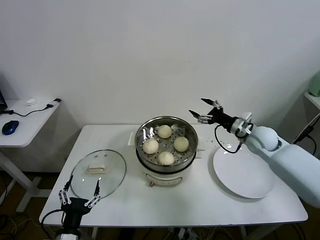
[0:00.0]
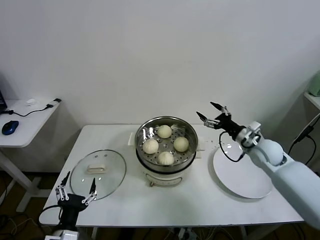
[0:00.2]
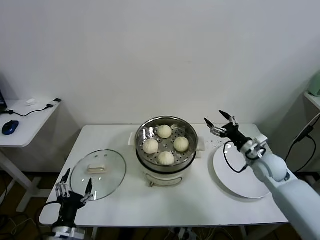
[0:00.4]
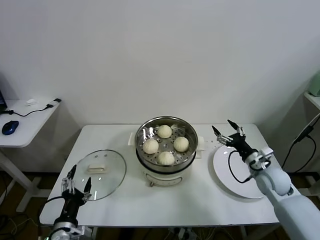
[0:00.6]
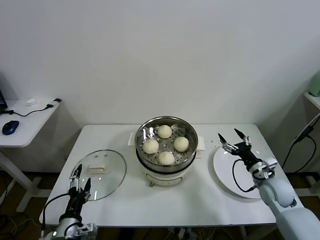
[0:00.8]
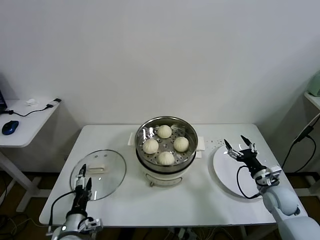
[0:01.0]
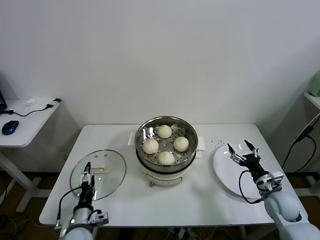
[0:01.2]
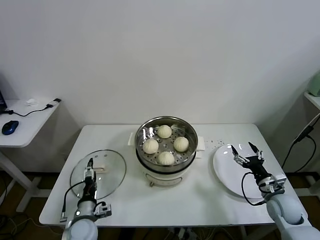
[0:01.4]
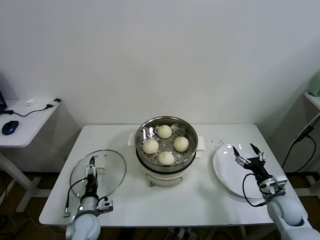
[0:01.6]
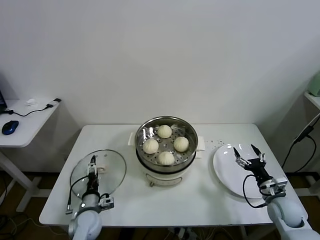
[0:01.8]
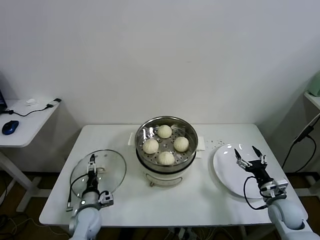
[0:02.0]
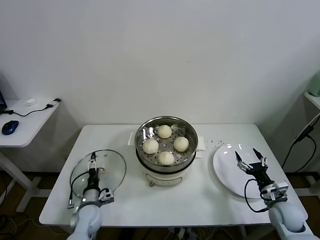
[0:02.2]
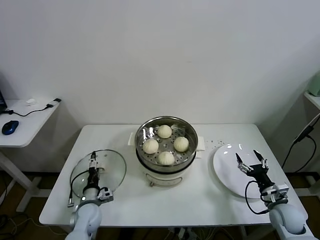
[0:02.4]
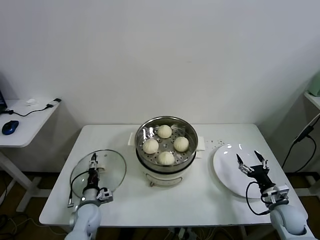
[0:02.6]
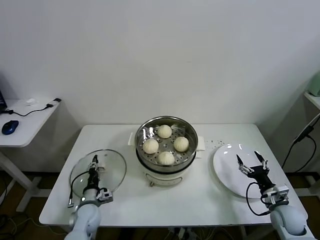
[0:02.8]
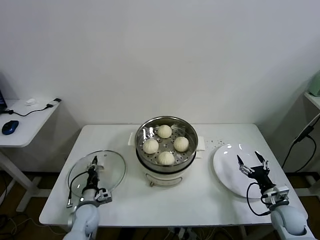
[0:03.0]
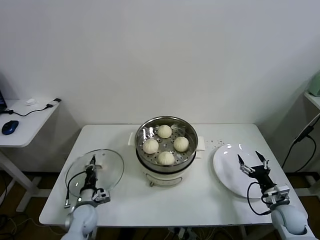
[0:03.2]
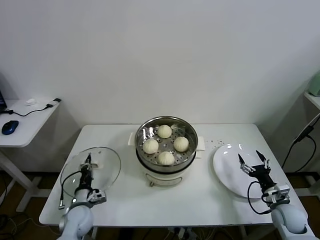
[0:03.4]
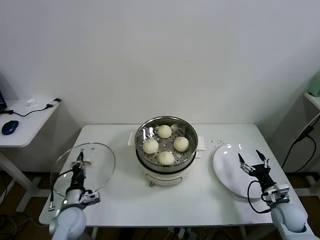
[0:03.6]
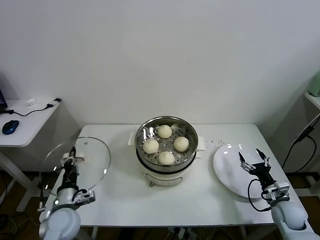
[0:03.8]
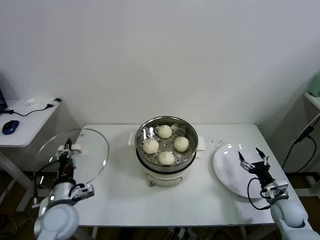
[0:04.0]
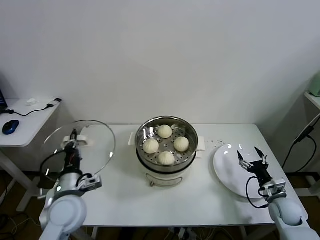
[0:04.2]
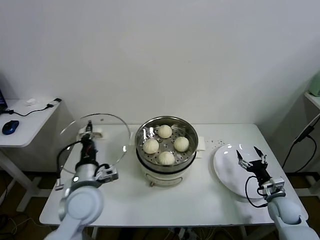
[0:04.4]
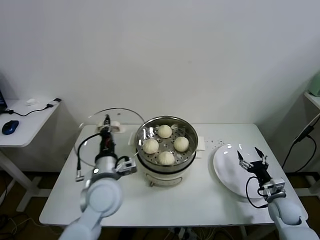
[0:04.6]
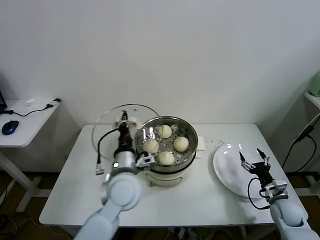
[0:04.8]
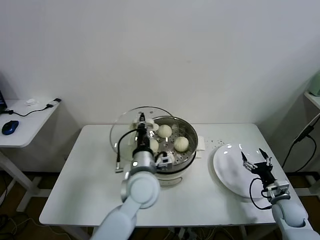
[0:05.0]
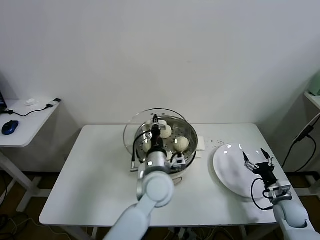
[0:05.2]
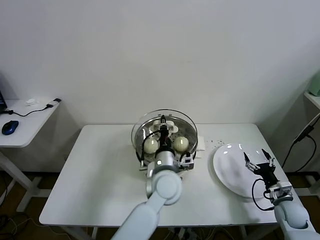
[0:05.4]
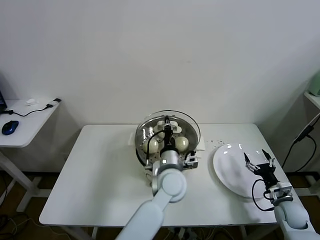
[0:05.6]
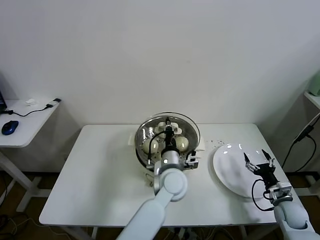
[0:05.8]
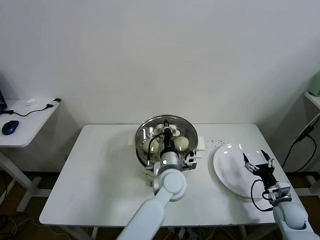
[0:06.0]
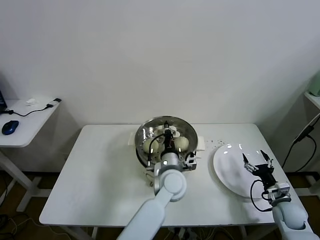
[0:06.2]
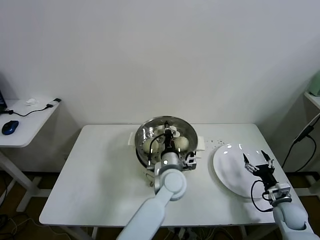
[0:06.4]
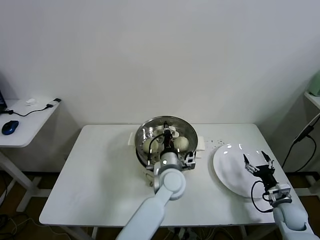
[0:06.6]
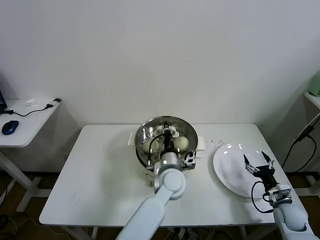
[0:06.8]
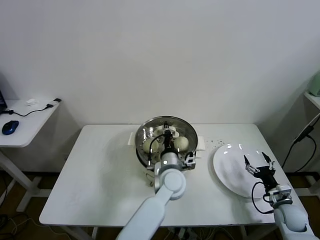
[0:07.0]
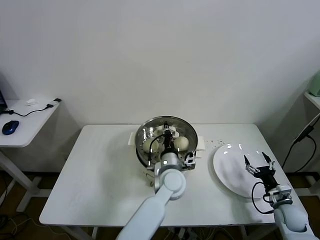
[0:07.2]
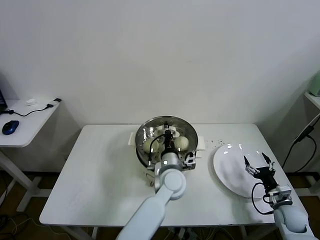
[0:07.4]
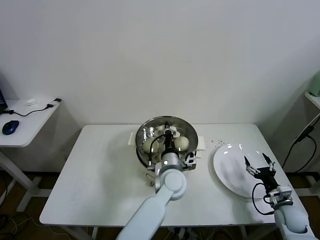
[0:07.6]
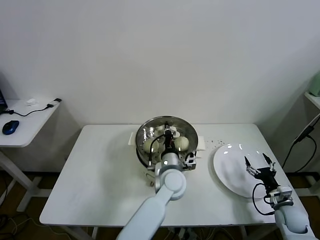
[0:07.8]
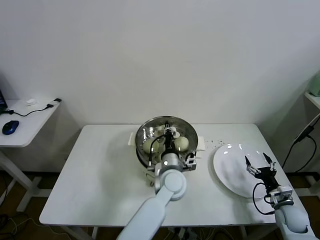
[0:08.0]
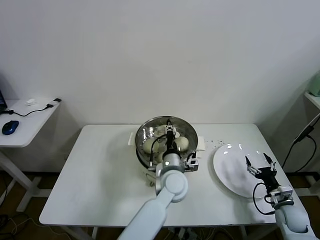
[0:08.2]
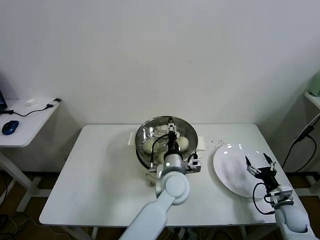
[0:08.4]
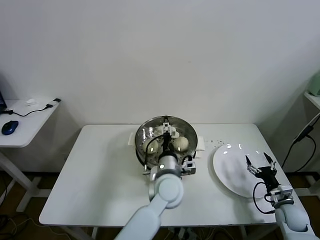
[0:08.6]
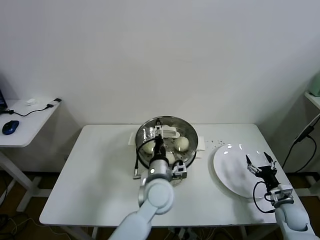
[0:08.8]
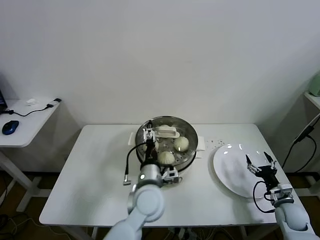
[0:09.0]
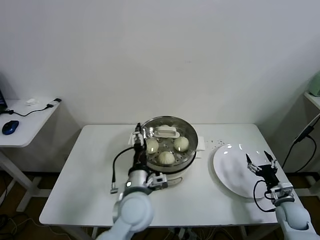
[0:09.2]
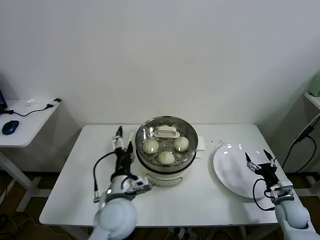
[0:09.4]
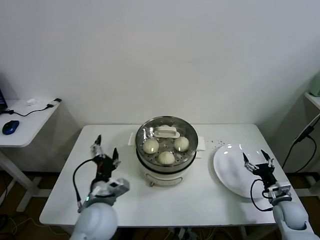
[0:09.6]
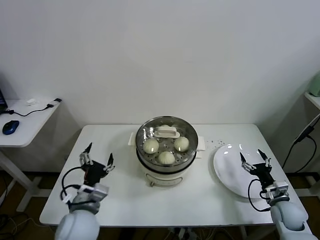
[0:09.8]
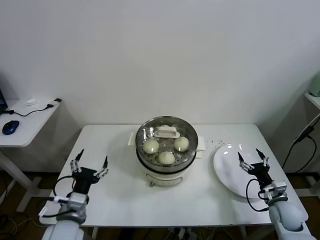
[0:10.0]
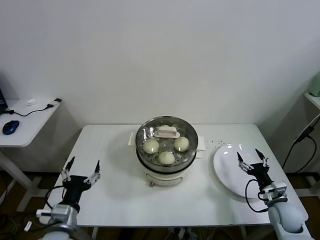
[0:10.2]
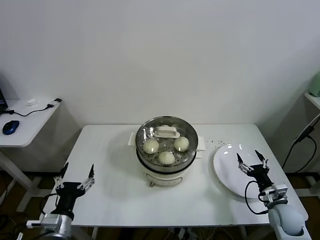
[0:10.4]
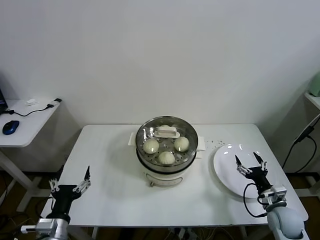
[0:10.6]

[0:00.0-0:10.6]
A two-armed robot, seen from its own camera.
Task of the whole recording: take steamed baozi put them in steamer.
Step, 0:00.0 to 0:03.2: Grasp the pot lid with left gripper.
Step, 0:03.4 to 0:08.4: Place the pot lid on the steamer with left gripper.
0:00.0 to 0:01.6: The right gripper shifts about 25 cm backward and downward. Meanwhile the left gripper moves forward and downward, approximately 15 cm.
0:01.6 to 0:03.0: The left gripper shifts by roughly 5 cm, and closes.
0:03.0 to 0:04.6: The left gripper travels upward and to the right by approximately 25 cm.
0:04.6 to 0:06.0: The left gripper moves to the right, some 20 cm.
0:06.0 to 0:07.6: The grippers stay close to where they were, moving slightly.
0:07.6 to 0:09.0: The left gripper goes about 10 cm backward and to the left, and opens its fingers.
0:09.0 to 0:10.6: The right gripper is displaced to the left by roughly 5 cm, while the left gripper travels to the left and backward by roughly 30 cm.
